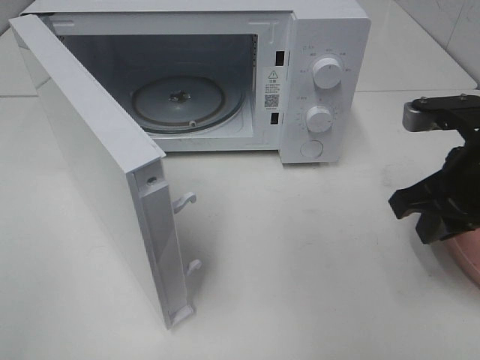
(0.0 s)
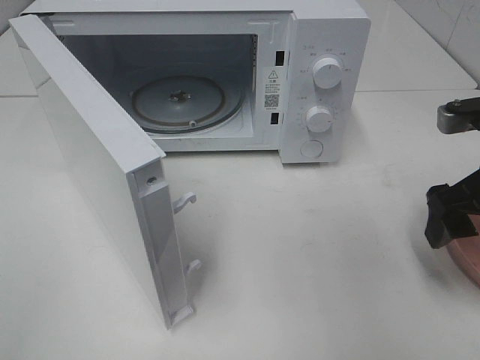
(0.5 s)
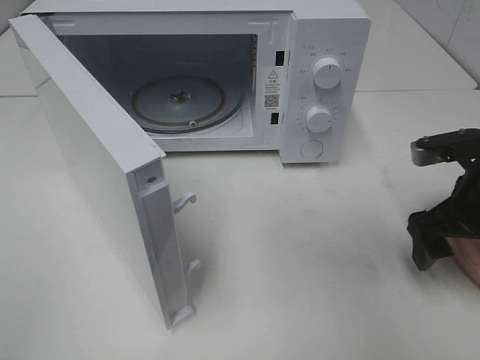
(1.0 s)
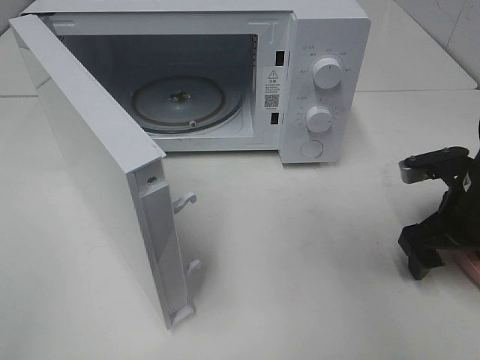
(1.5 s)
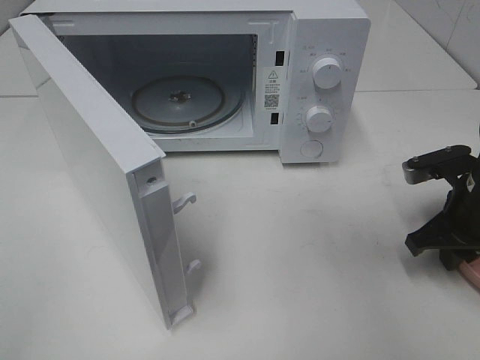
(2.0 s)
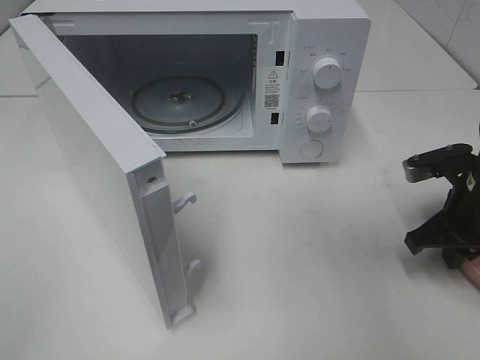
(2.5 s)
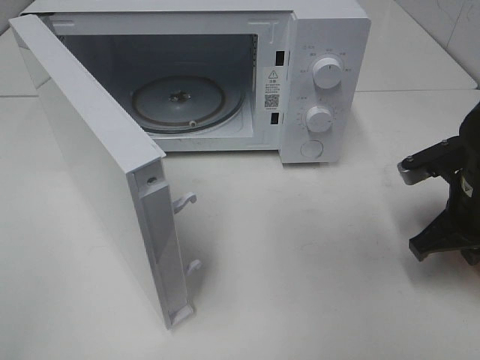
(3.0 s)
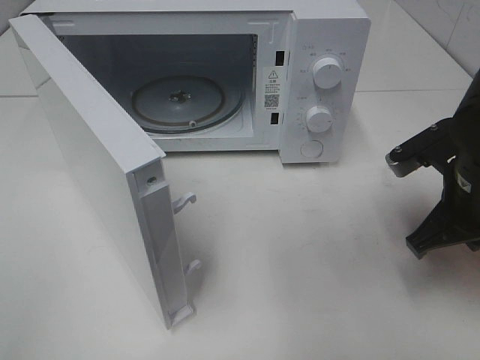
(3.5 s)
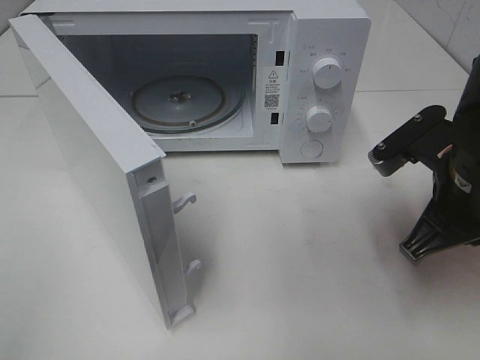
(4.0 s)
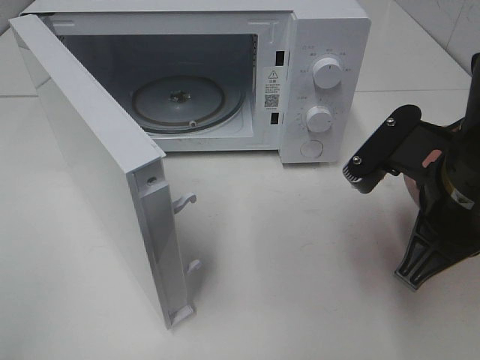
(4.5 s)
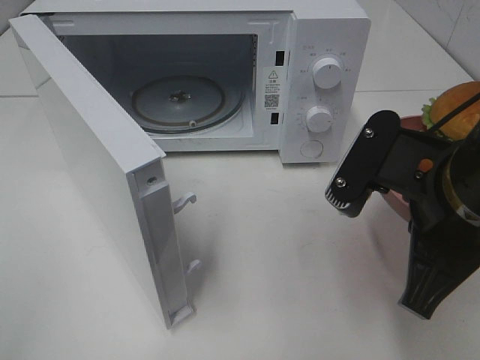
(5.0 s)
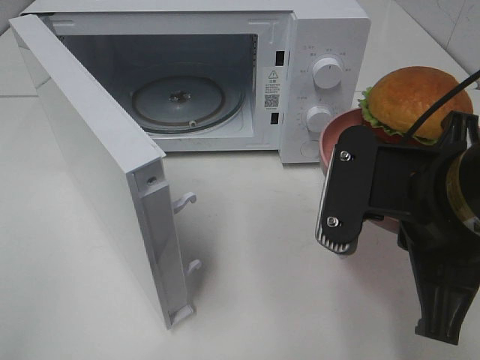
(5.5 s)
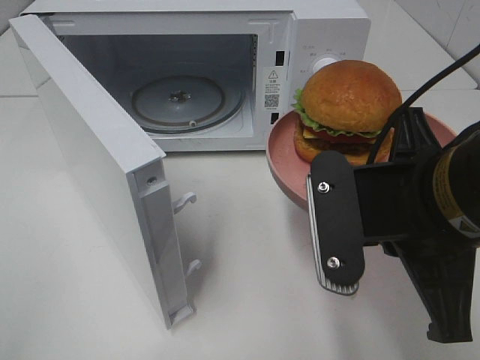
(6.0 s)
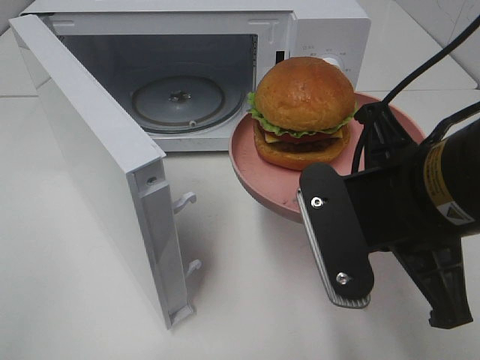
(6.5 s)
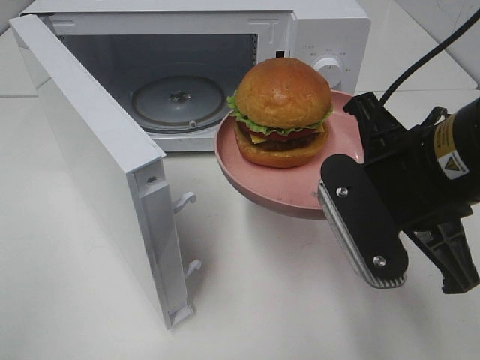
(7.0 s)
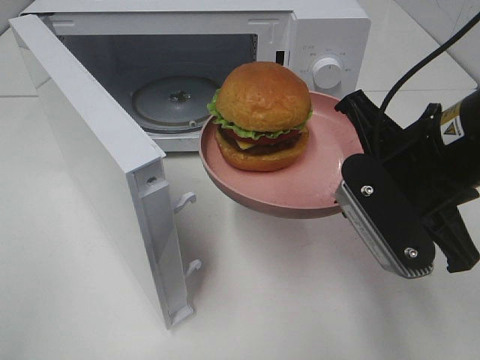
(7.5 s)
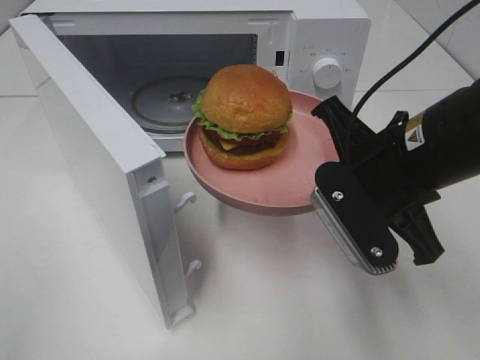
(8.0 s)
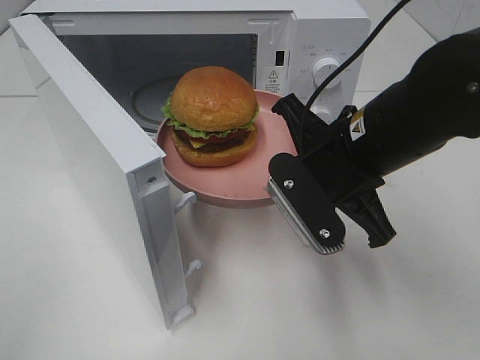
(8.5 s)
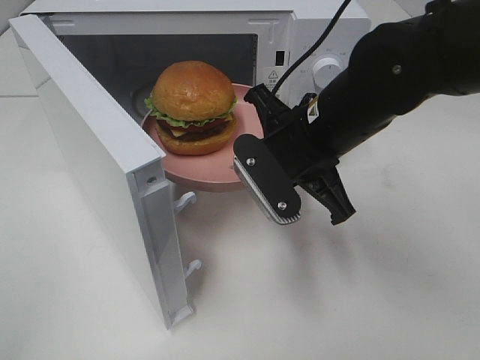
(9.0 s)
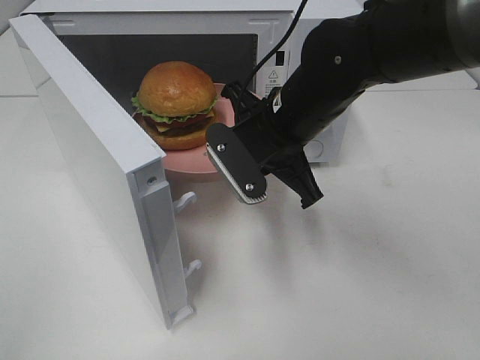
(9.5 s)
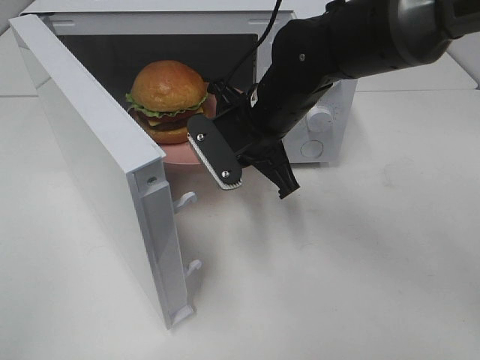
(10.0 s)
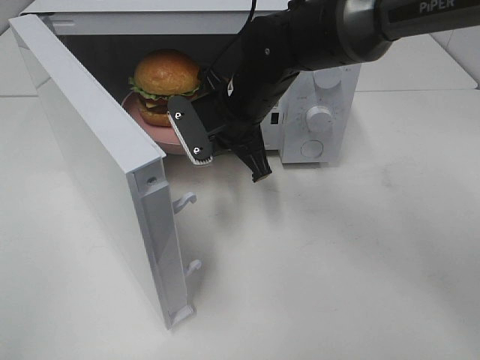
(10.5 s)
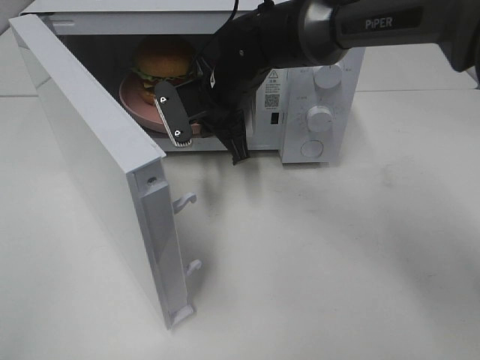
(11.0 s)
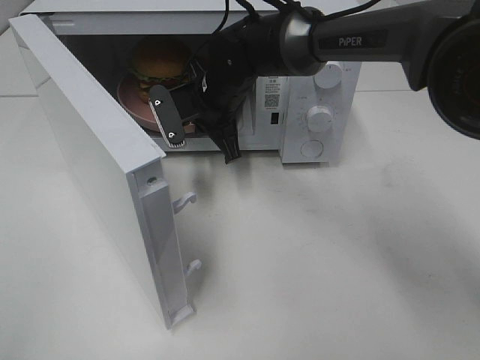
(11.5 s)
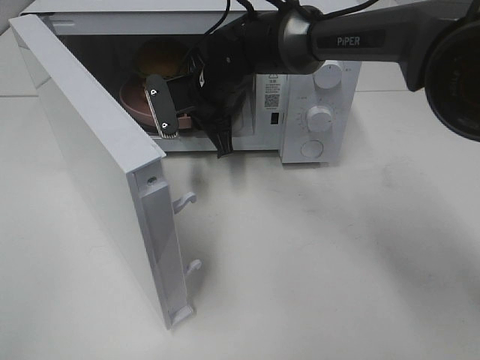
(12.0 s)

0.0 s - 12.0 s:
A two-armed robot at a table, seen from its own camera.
Task of the whole recording: Heat the burger.
Step, 0.0 s - 2.5 s: Right hand: grab the plate with the hamburger.
0.0 s - 2.0 s: The right gripper travels downward by about 10 cm, and opens, then closes once more.
2.0 s - 4.0 s: The right gripper shifts some 10 cm upward, to the left and backward.
4.0 s - 6.0 s: The right gripper goes roughly 10 cm backward and to the left.
6.0 s - 8.0 s: The right gripper shifts roughly 5 cm forward.
8.0 s - 10.0 s: The right gripper is displaced forward and to the left by about 15 cm.
10.0 s - 12.0 s: The right gripper is displaced forward and to the left by roughly 10 cm.

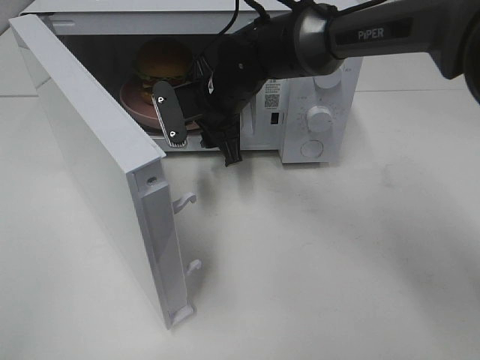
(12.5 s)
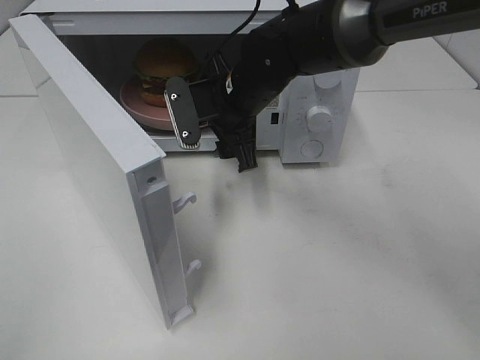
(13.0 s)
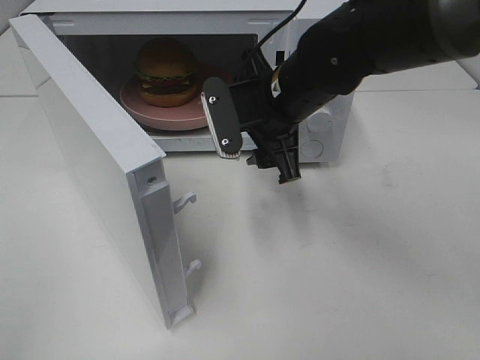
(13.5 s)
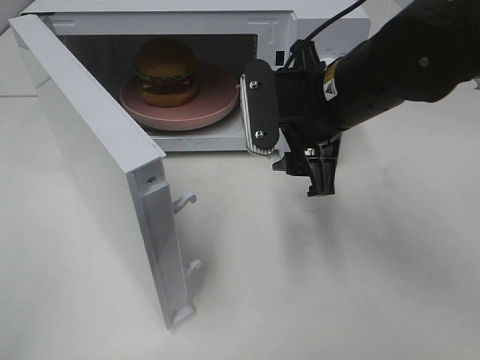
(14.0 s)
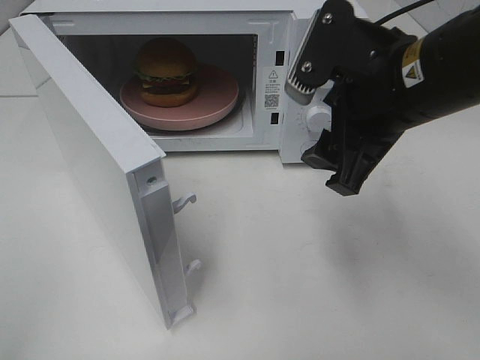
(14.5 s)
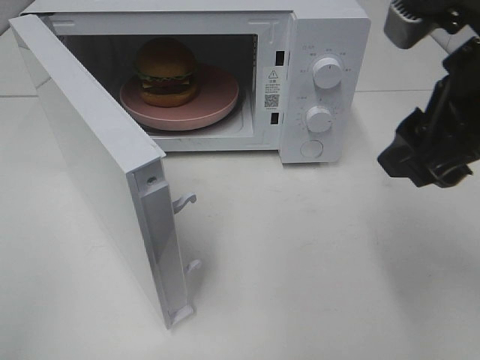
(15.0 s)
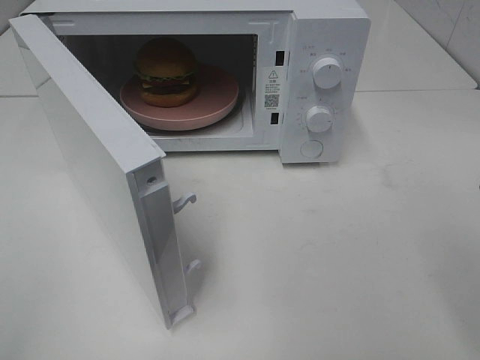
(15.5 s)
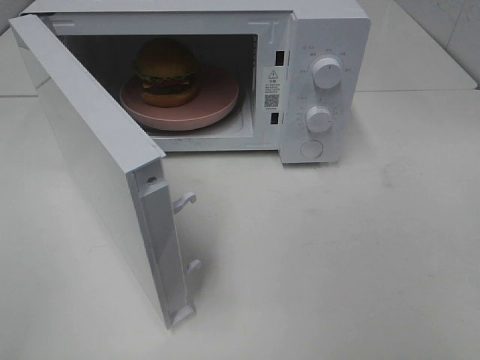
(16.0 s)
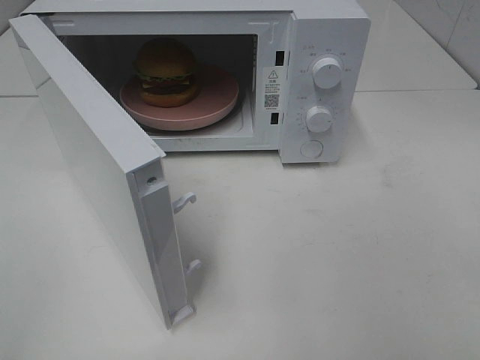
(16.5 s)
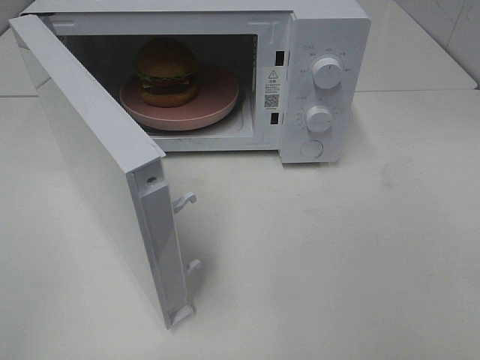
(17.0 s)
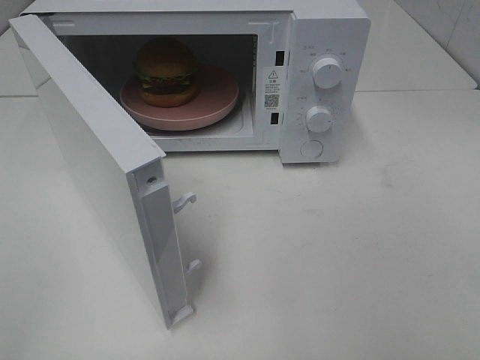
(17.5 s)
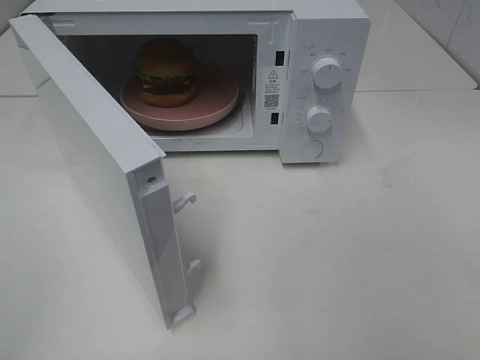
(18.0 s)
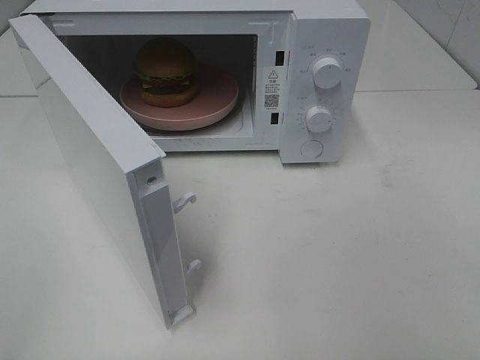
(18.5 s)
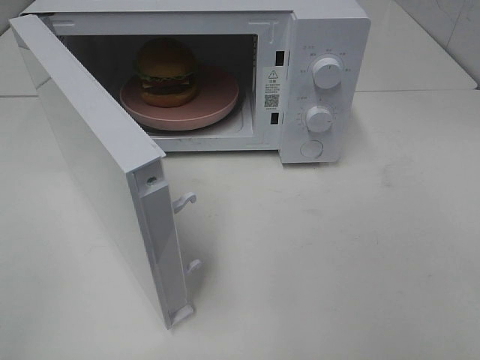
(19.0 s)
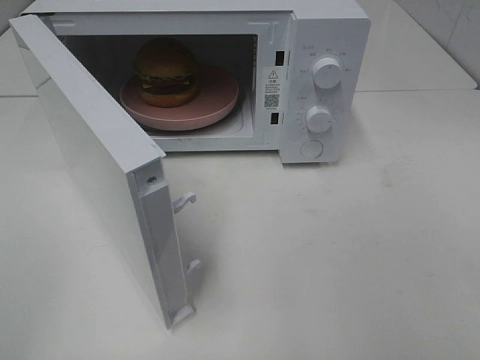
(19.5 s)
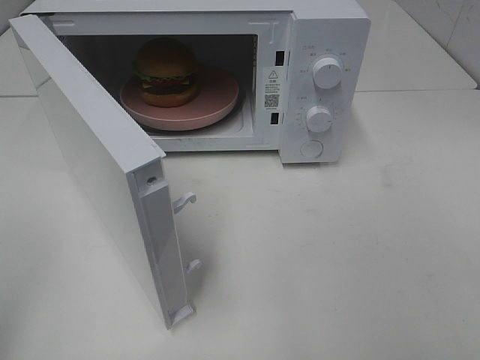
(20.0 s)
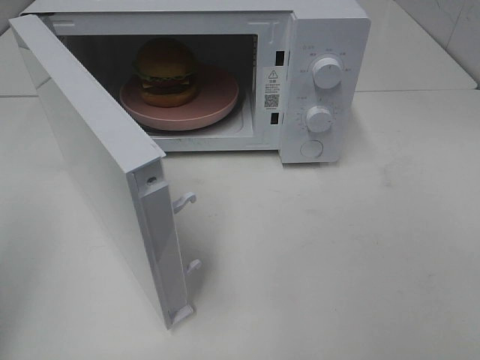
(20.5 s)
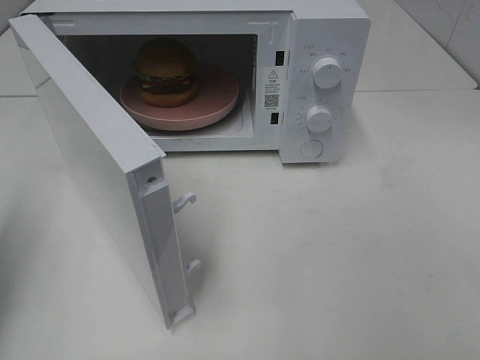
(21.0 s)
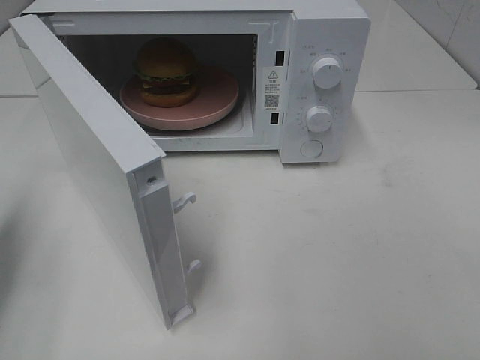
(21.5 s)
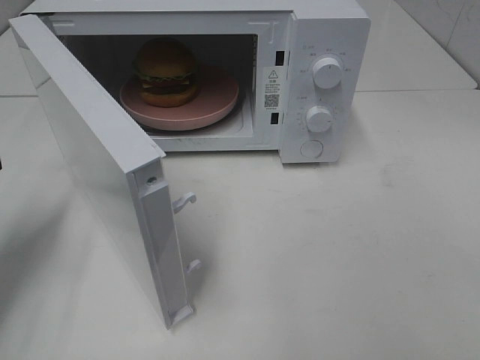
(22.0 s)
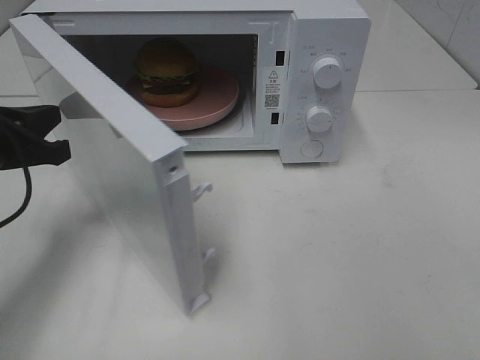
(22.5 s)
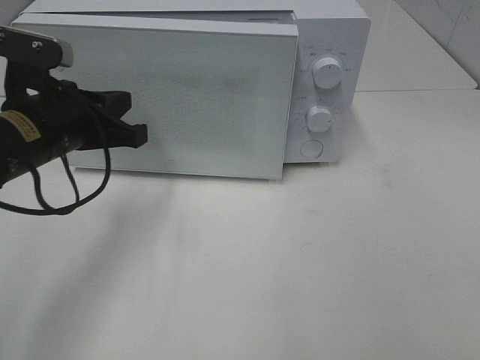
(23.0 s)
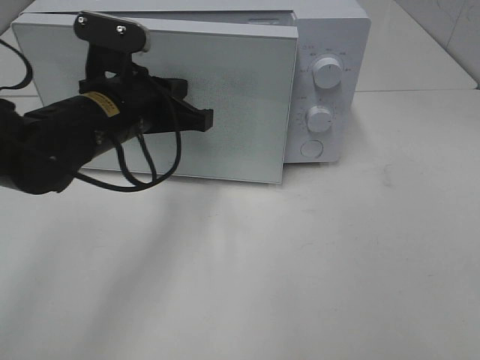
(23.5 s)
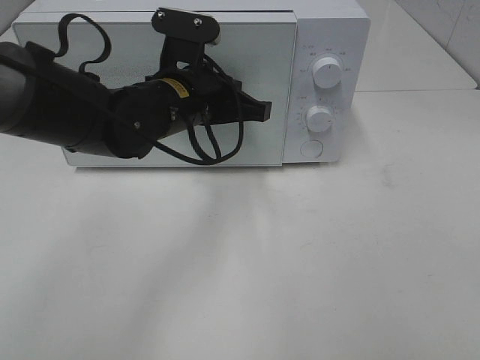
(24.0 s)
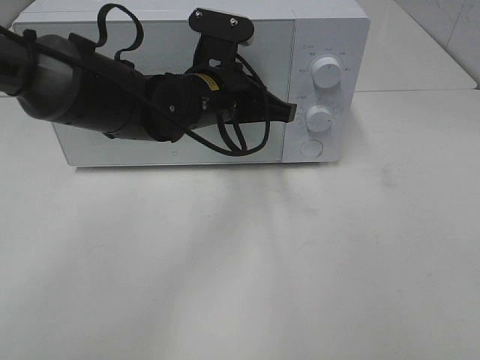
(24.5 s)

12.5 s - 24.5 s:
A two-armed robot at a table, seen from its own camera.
Task of the whole recording: Heat the burger.
12.5 s - 14.5 s: The right gripper is displaced backward, to the right and upward by some 25 cm.
14.5 s - 16.5 s: The right gripper moves backward and to the right, roughly 25 cm.
20.5 s - 22.5 s: The left gripper goes some 25 cm forward, downward and to the right.
22.5 s - 24.5 s: The left gripper moves to the right and forward, roughly 25 cm.

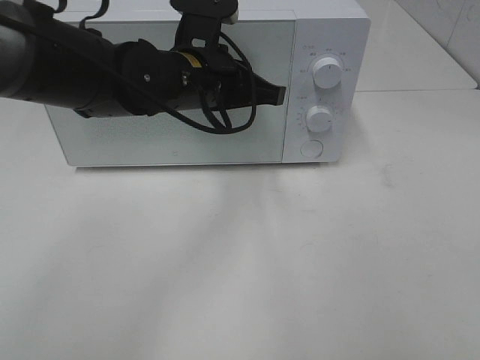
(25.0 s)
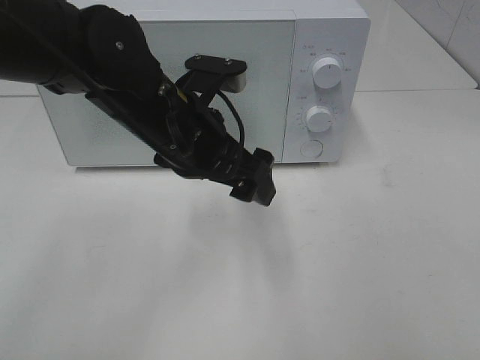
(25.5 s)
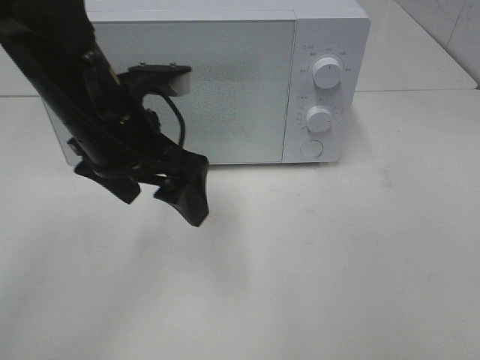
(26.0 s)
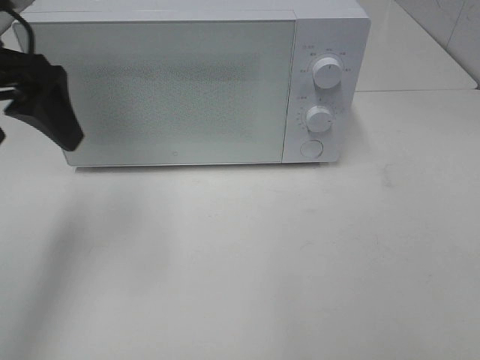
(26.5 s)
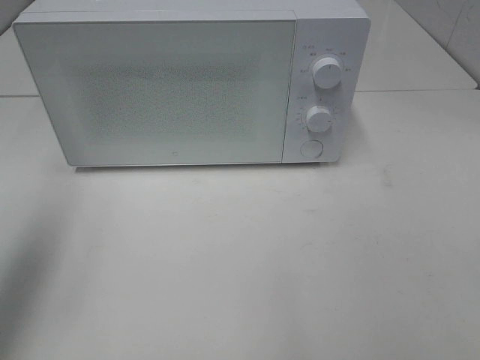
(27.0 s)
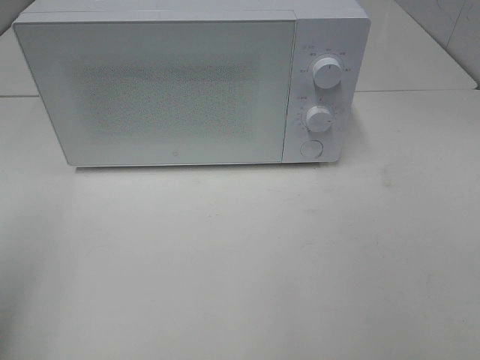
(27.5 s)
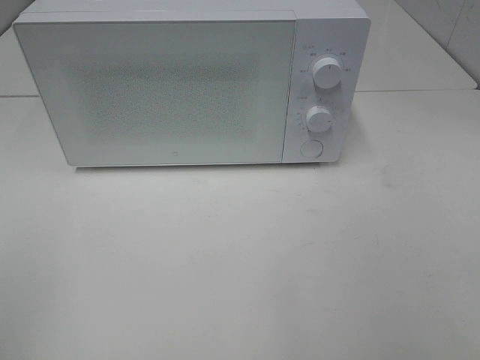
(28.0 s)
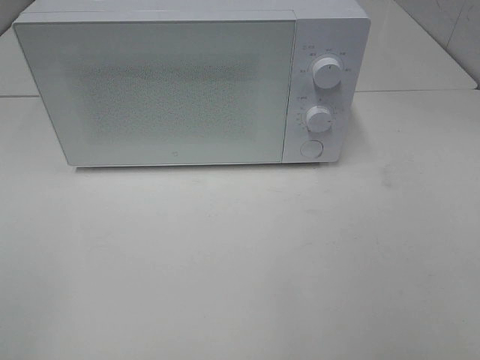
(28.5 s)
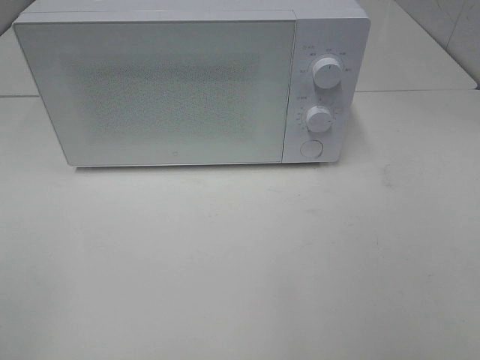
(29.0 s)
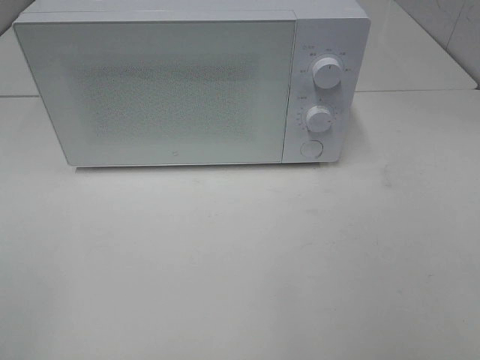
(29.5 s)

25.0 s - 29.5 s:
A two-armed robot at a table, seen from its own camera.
Task of the whole recording: Heat the burger.
25.0 s - 27.0 s: The left gripper moves to the left, backward and upward, about 30 cm, and opens its fingers.
27.0 s - 29.5 s: The left gripper goes roughly 20 cm backward.
